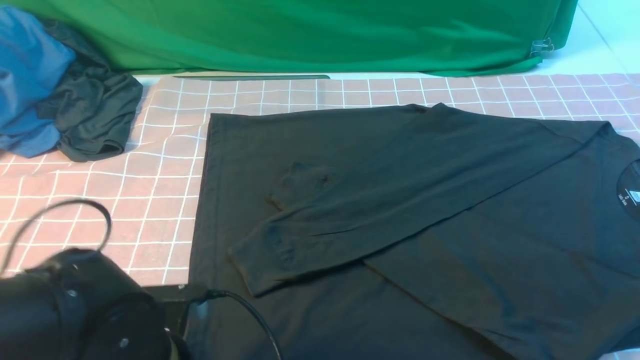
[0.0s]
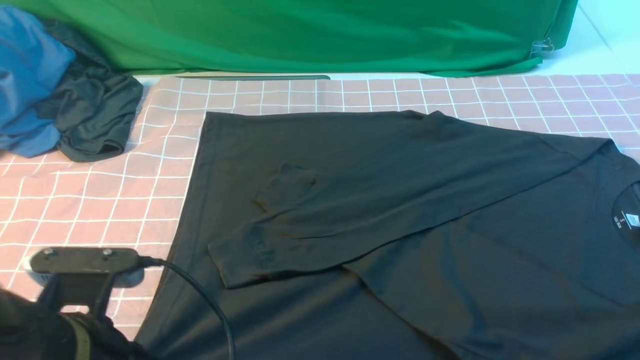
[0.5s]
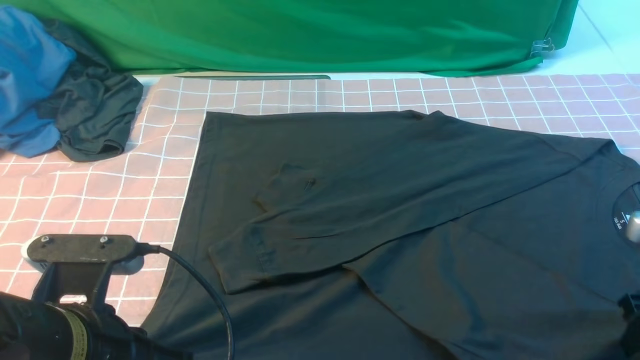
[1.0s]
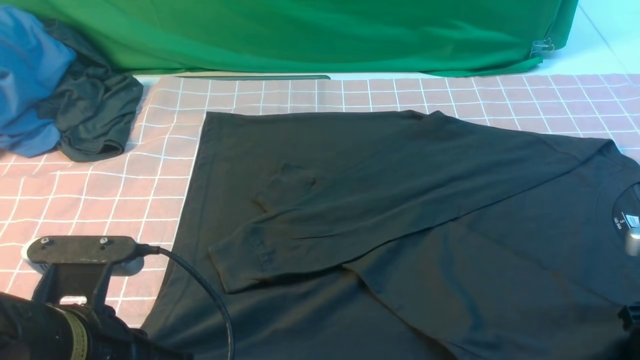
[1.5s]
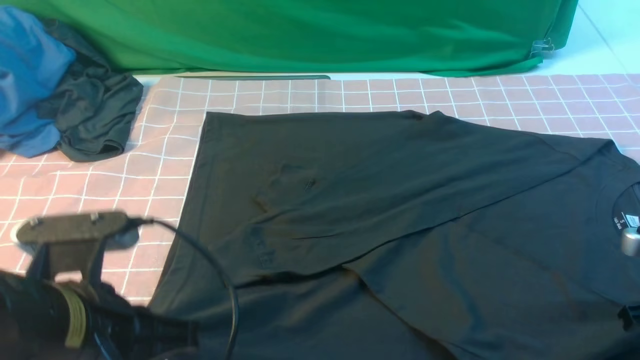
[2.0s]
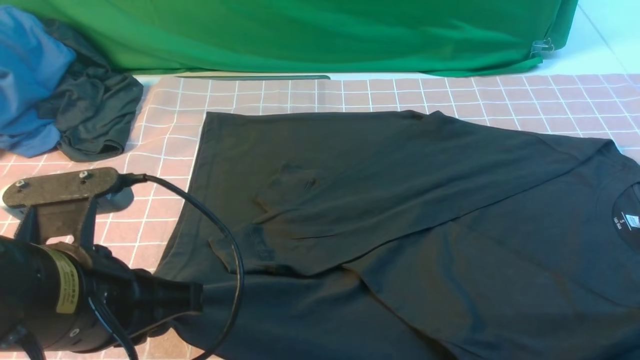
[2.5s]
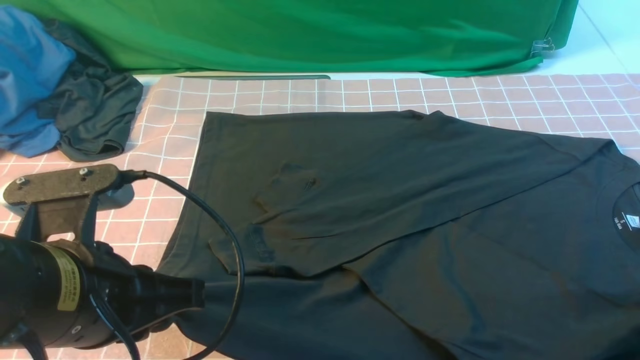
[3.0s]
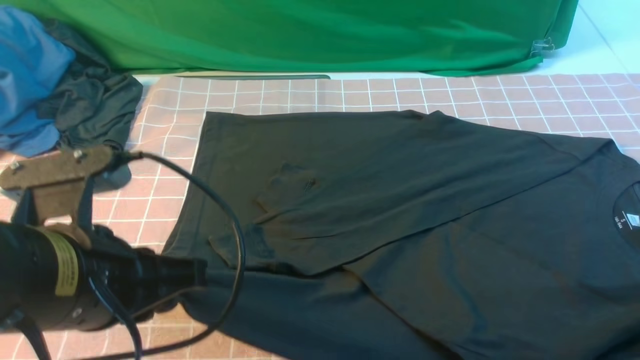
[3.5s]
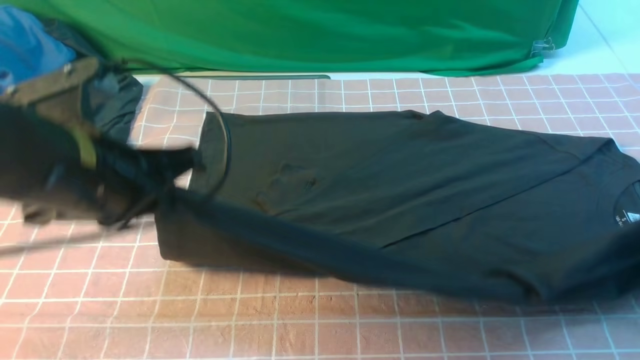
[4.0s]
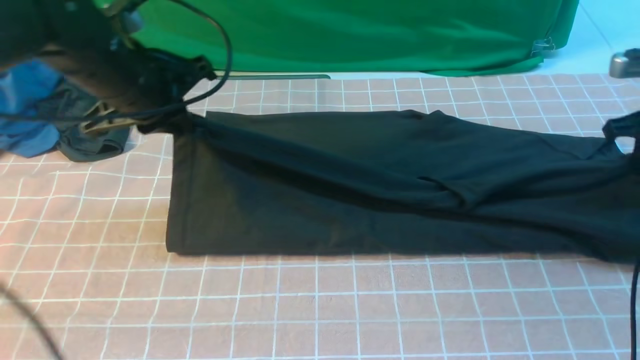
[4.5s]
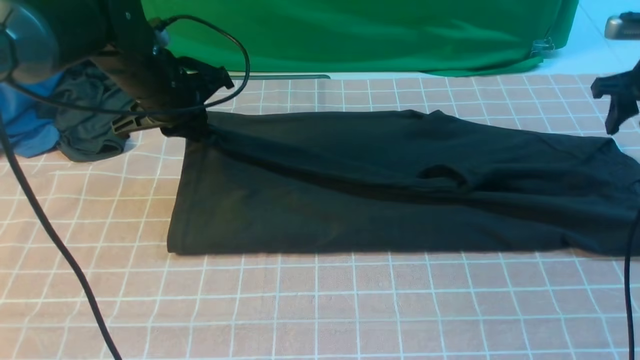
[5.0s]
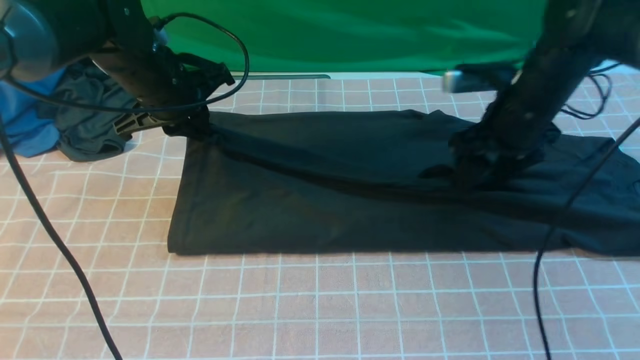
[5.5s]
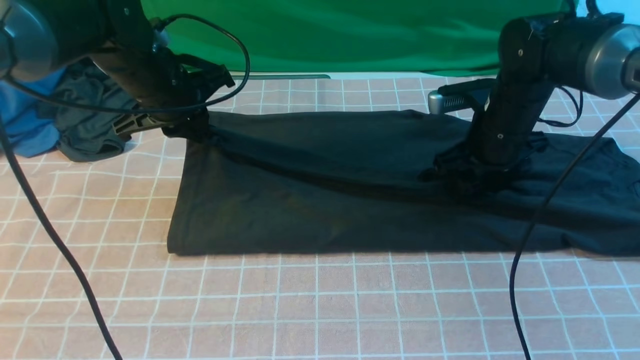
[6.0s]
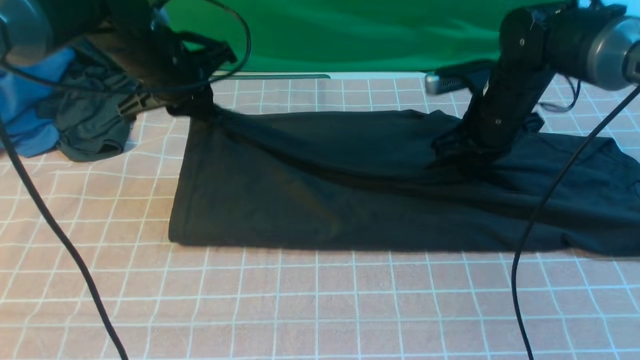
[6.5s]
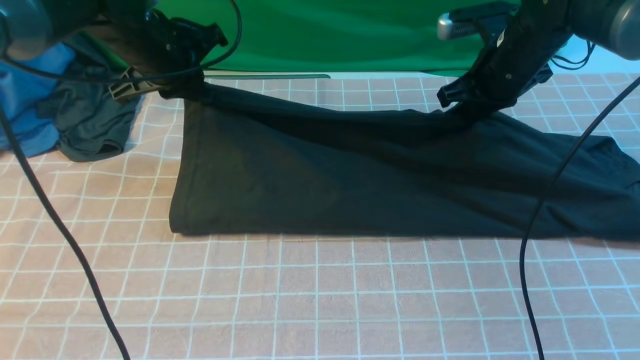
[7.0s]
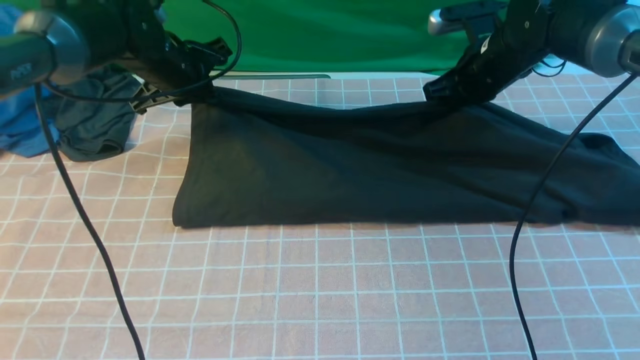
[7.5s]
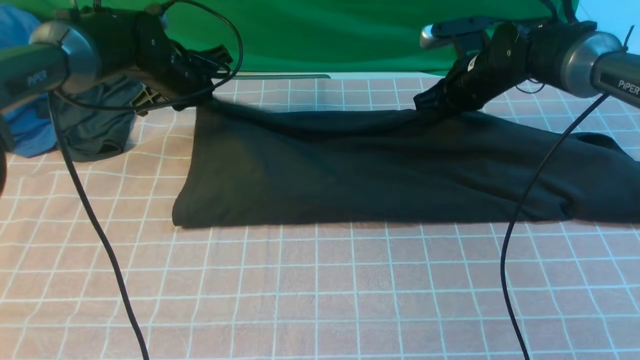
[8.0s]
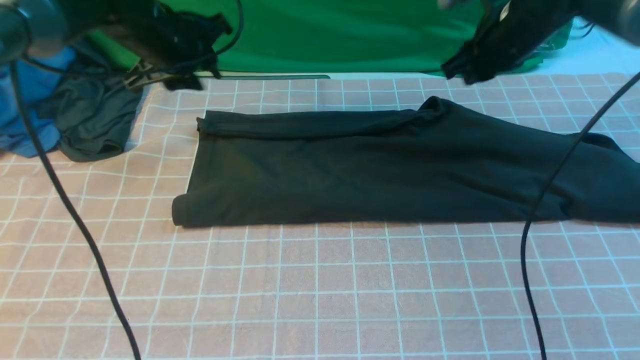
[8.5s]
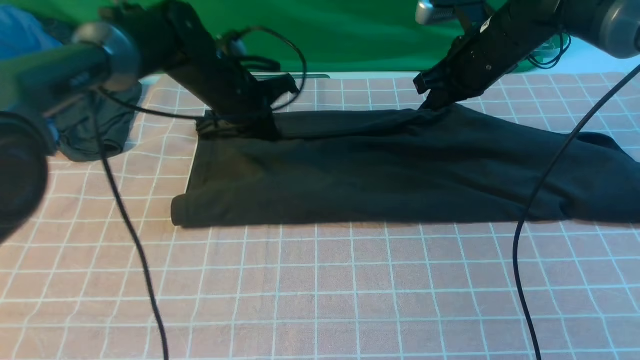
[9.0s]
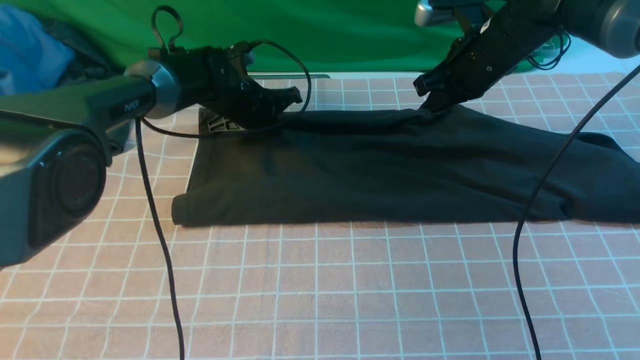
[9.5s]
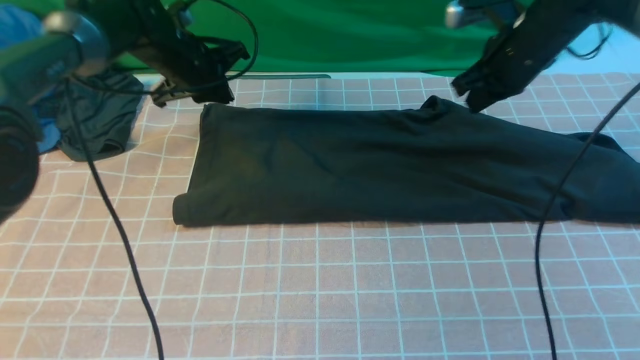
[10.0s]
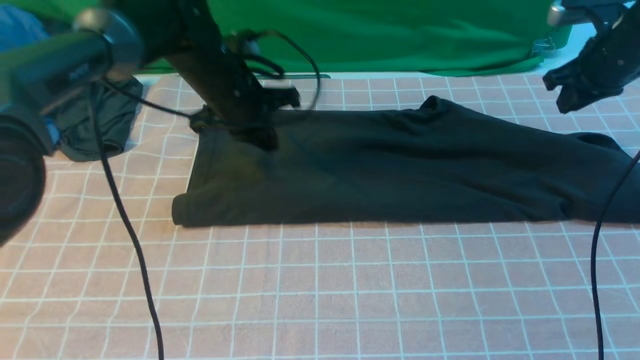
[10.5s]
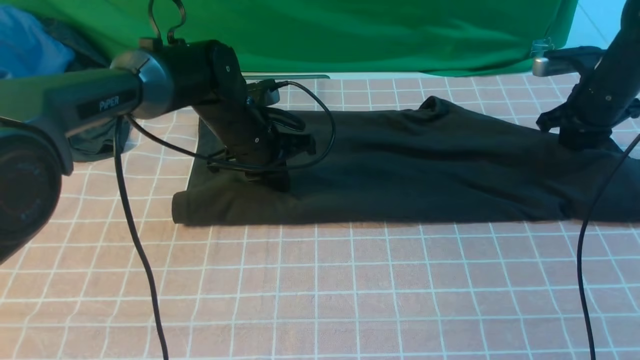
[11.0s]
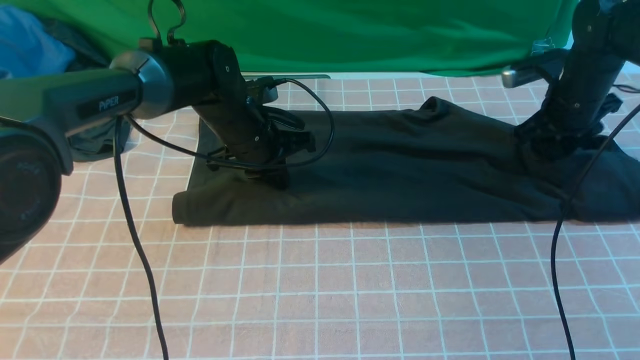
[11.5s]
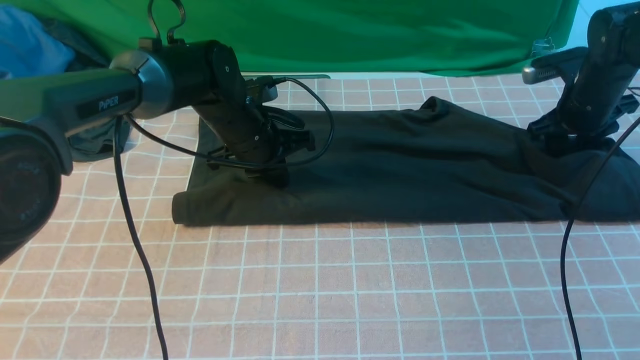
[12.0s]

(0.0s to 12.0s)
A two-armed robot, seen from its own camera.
Step, 0.0s - 3.0s: use both arms simultaneously to clamp the lower edge of the clothing fabric.
Step, 3.5s - 8.0s: use both arms to drag the lower edge of the fabric forward and fold it over the upper edge.
0.0s - 2.0s: The right gripper moves downward and backward, some 20 cm, and opens and closes again. The left gripper is displaced upward by about 10 cm.
2.0s - 4.0s: The left gripper heads forward, covering approximately 10 cm, while the right gripper travels forward and upward by roughly 10 cm, and opens, then closes again.
4.0s - 6.0s: The right gripper shifts about 20 cm to the left and forward, and opens, while the left gripper heads forward, covering about 20 cm.
6.0s - 8.0s: The grippers both shift forward by about 10 cm. The left gripper opens up.
8.0s - 10.0s: The left gripper moves up and down over roughly 10 cm, changing direction 2 times, and closes up; the right gripper moves upward, some 5 cm, and closes.
10.0s - 12.0s: The left gripper heads to the right and backward, covering some 10 cm; the right gripper moves to the right and downward, some 10 cm, and opens.

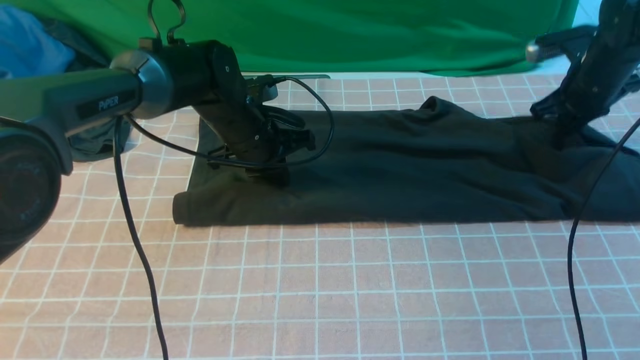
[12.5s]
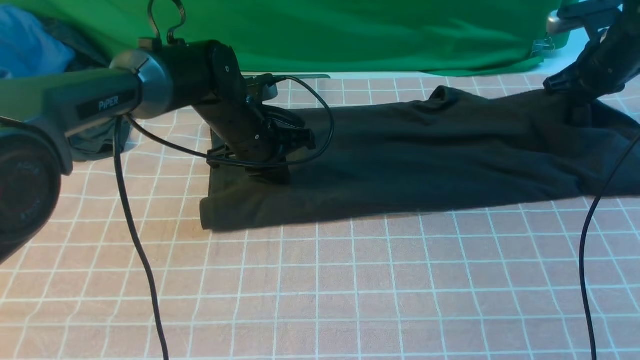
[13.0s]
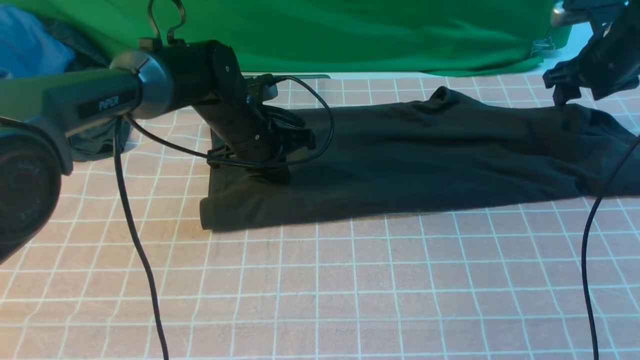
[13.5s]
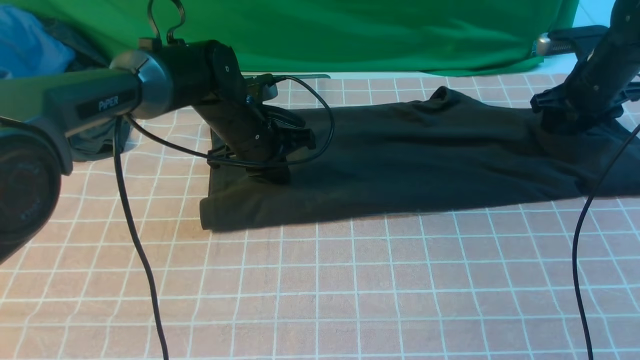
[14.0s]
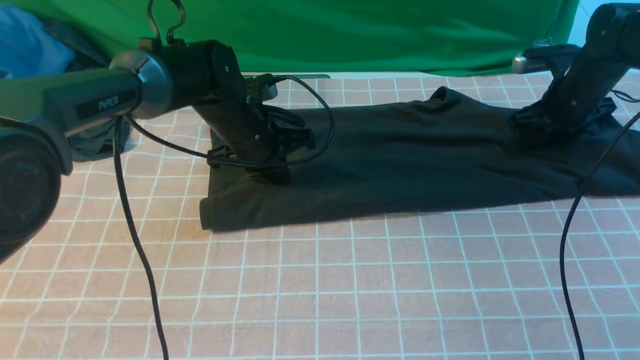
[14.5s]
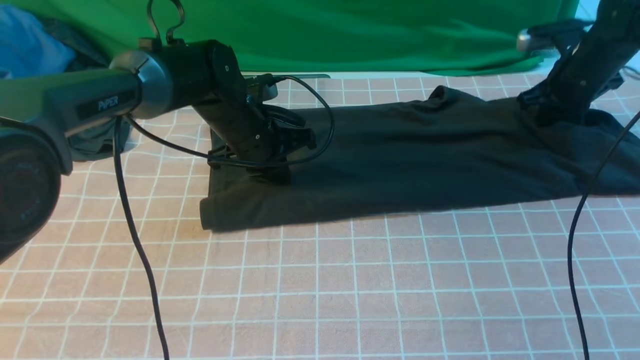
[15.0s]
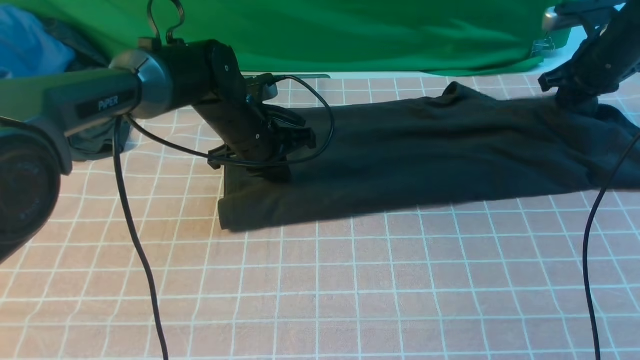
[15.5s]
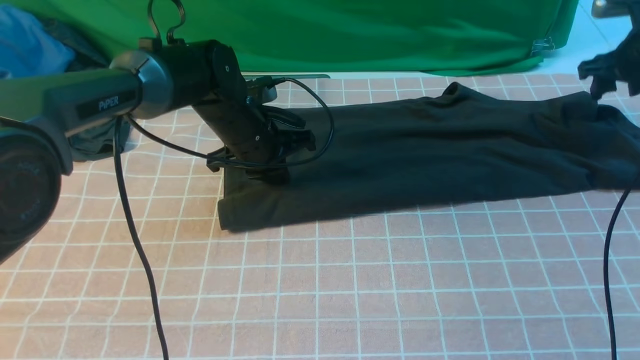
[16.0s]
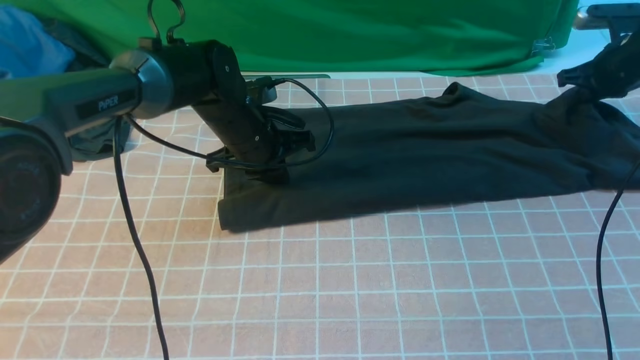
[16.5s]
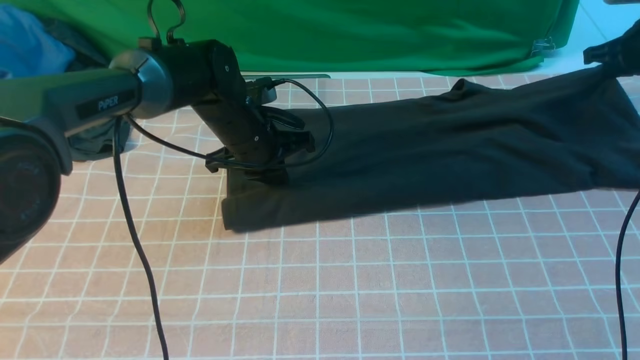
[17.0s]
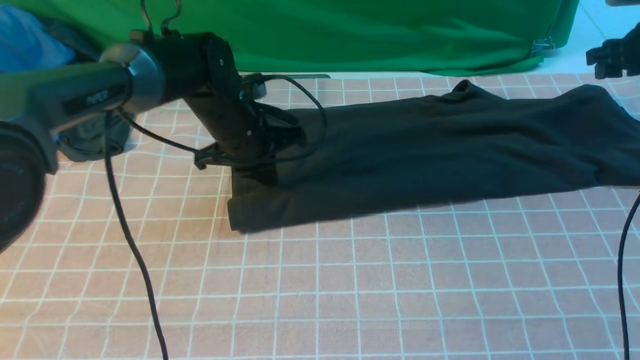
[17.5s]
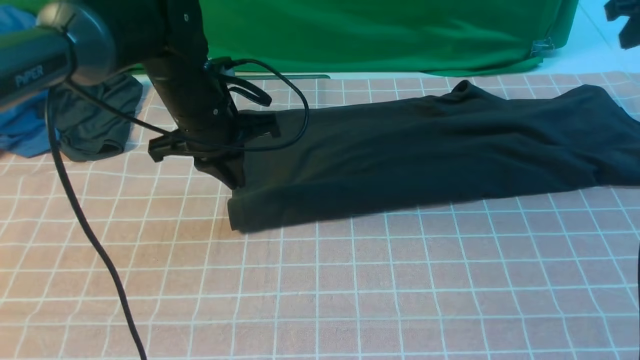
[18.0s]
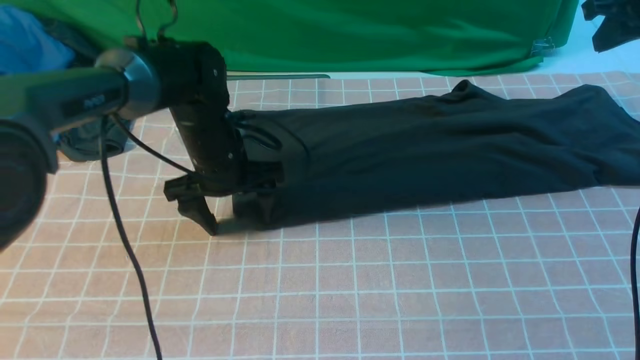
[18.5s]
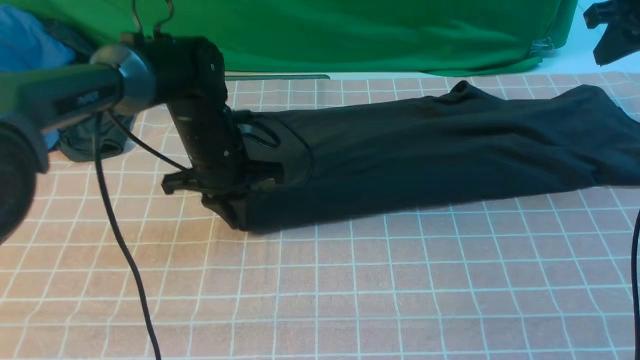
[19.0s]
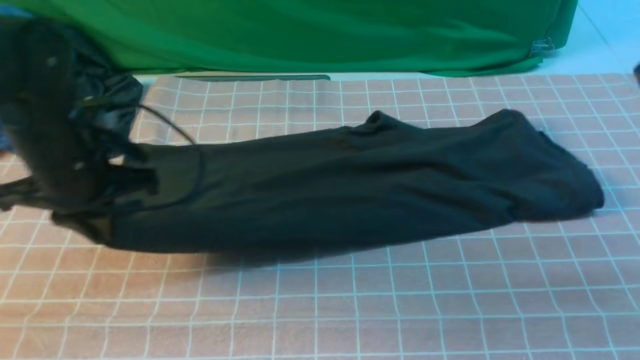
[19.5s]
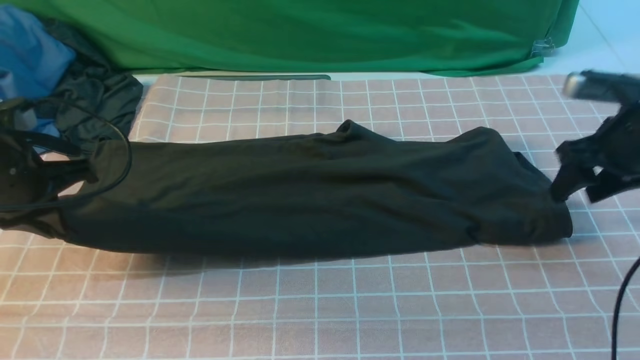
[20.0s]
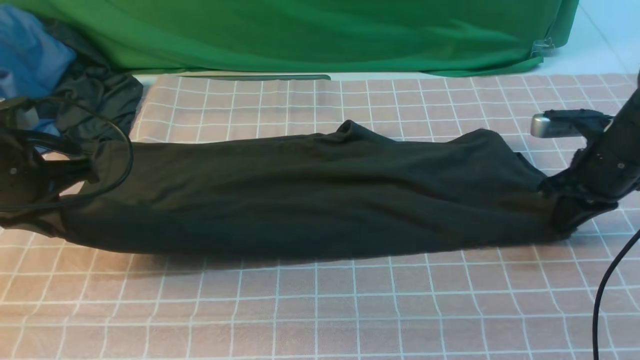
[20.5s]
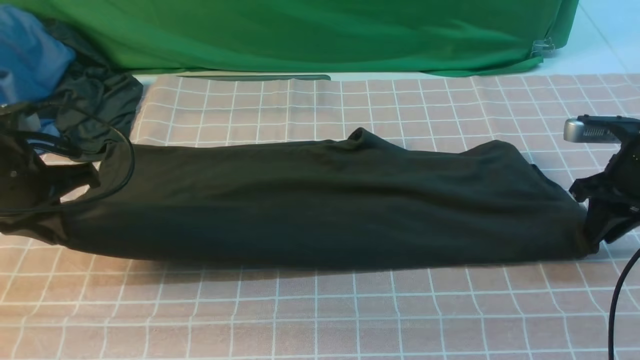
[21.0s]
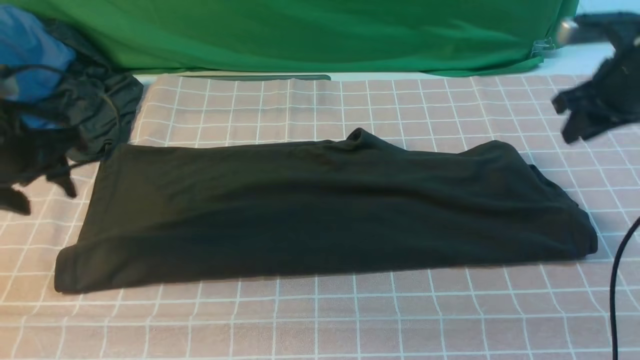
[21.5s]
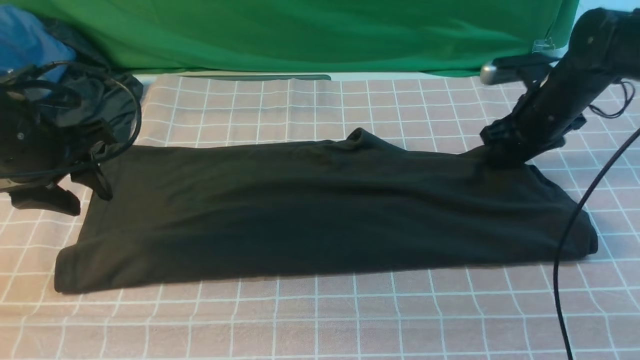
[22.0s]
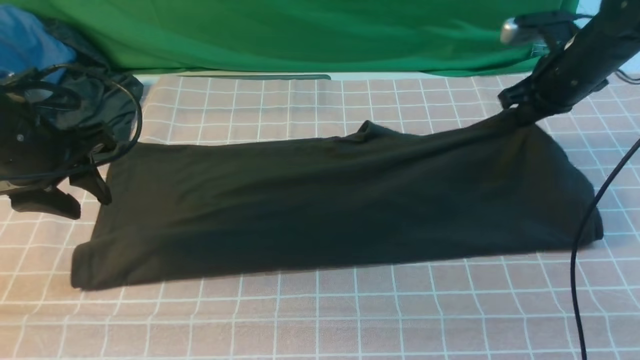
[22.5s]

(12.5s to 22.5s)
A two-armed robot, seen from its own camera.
12.5s - 14.5s: The right gripper opens its fingers.
14.5s - 16.5s: The right gripper heads to the right, covering some 10 cm, and closes up.
16.5s - 18.5s: The left gripper opens up, while the right gripper travels upward and backward by roughly 15 cm, and opens and closes again.
18.5s - 20.5s: The left gripper is displaced to the left and backward by about 20 cm, and closes up; the right gripper moves downward and backward, approximately 15 cm, and opens and closes again.
20.5s - 22.5s: The right gripper moves forward, roughly 10 cm, and opens, then closes once more, while the left gripper opens up.
